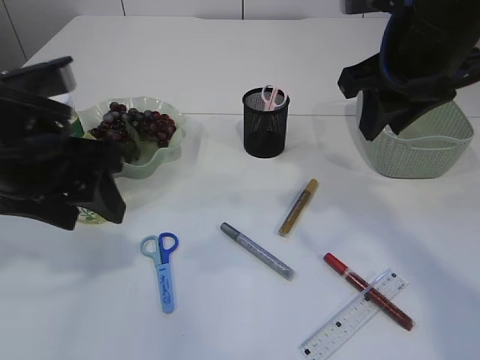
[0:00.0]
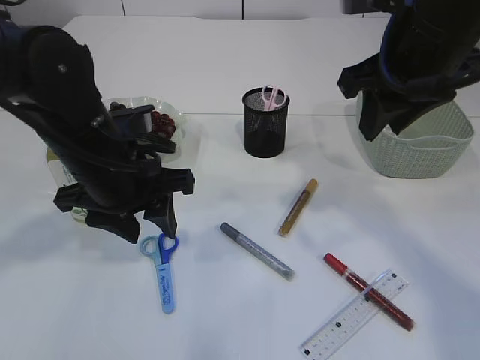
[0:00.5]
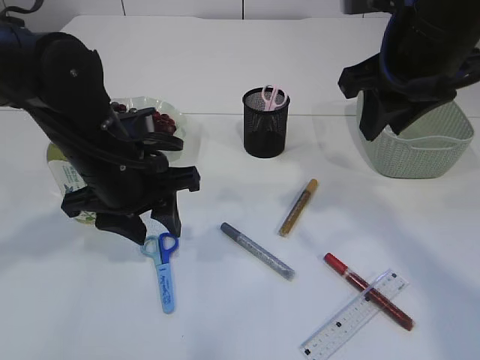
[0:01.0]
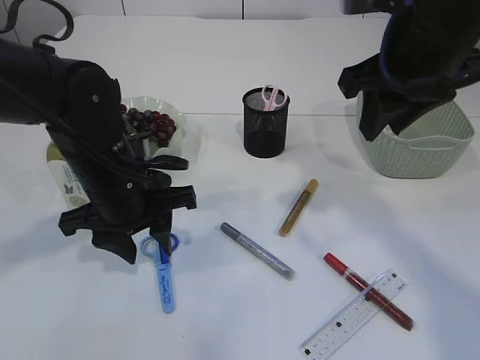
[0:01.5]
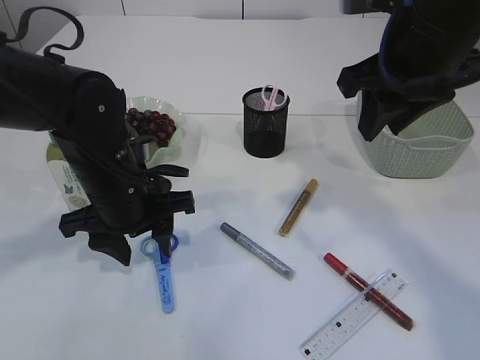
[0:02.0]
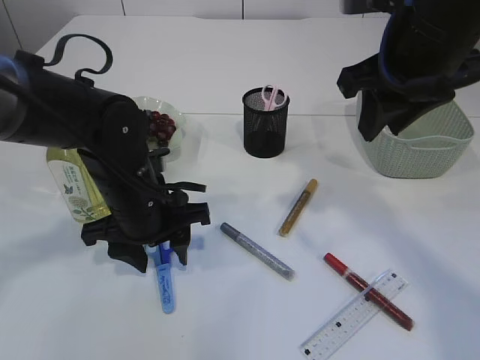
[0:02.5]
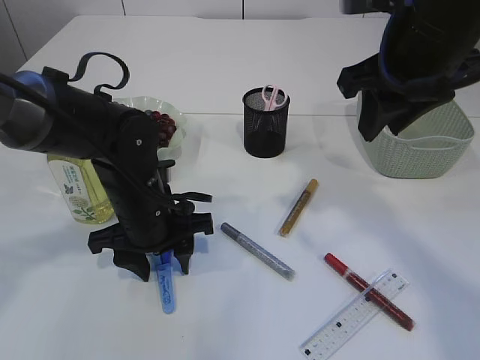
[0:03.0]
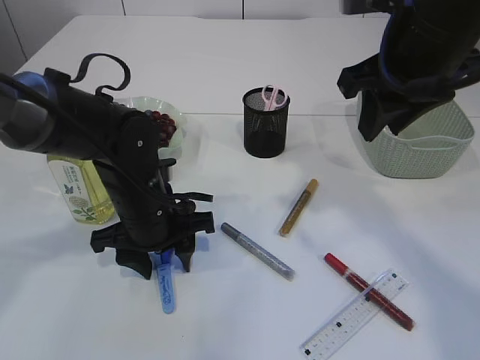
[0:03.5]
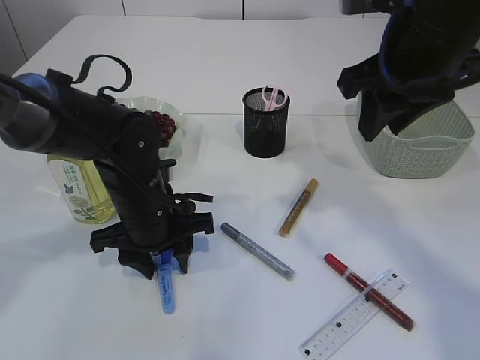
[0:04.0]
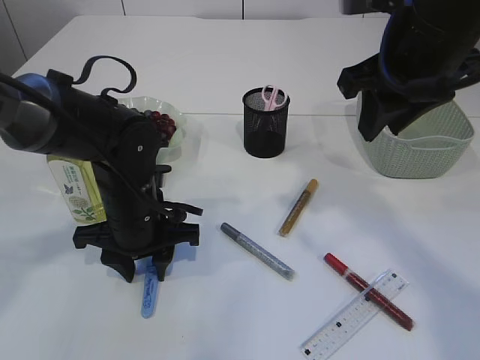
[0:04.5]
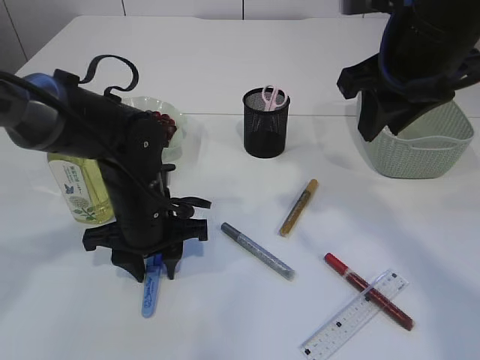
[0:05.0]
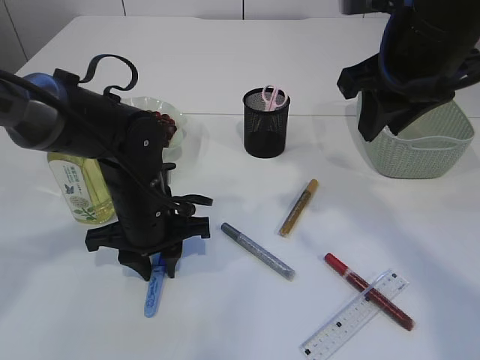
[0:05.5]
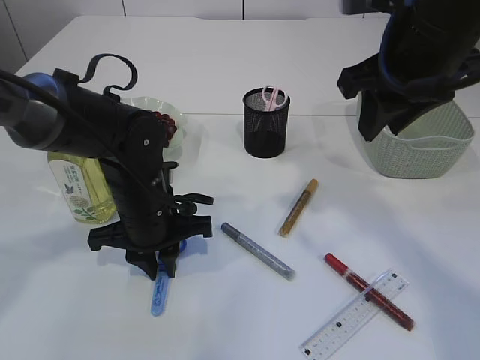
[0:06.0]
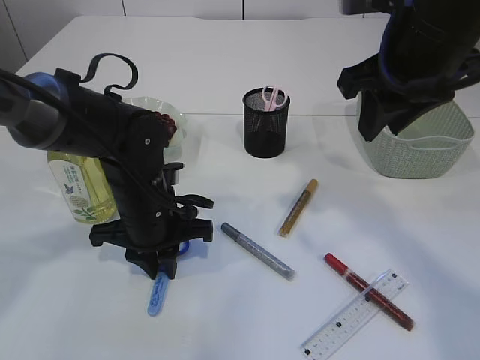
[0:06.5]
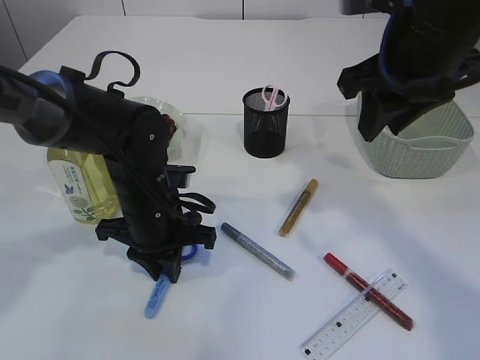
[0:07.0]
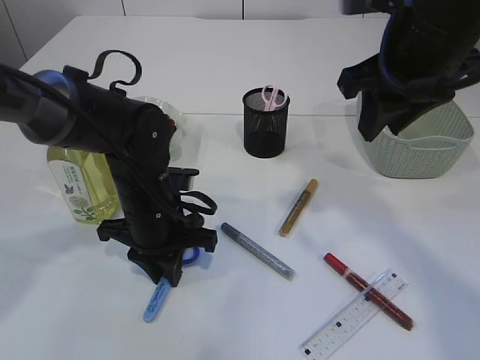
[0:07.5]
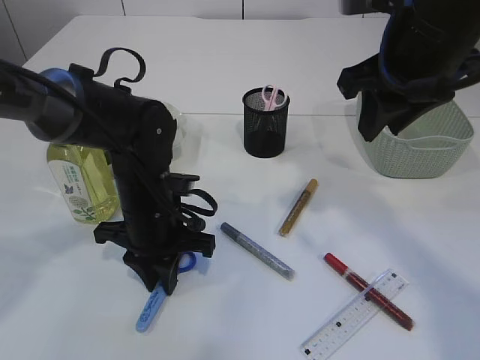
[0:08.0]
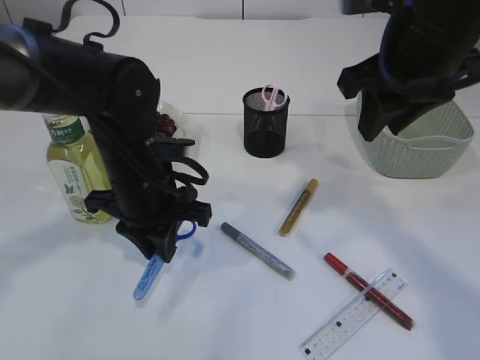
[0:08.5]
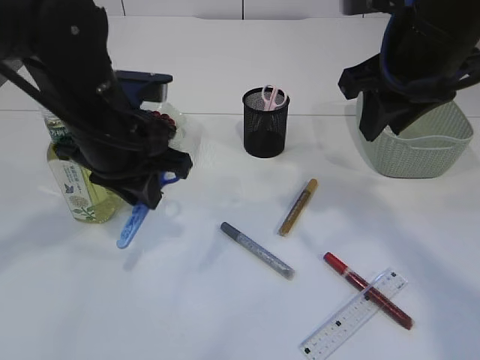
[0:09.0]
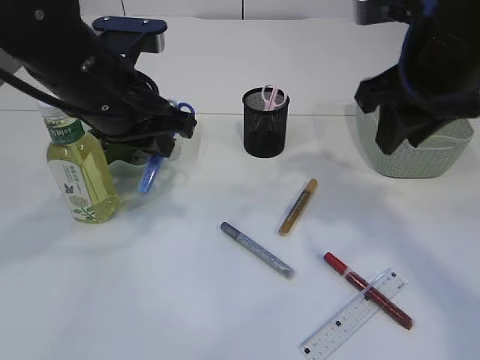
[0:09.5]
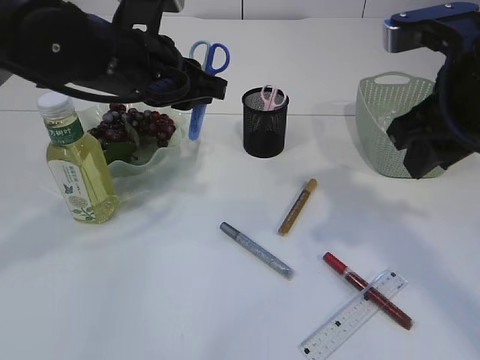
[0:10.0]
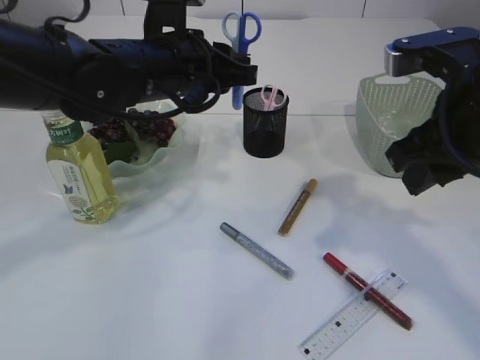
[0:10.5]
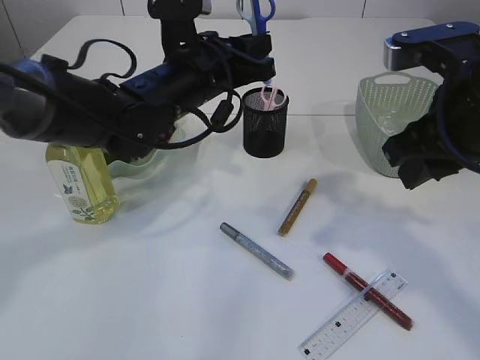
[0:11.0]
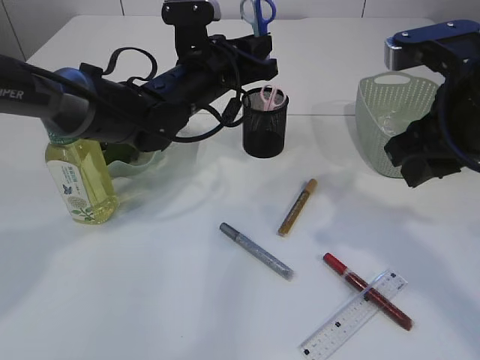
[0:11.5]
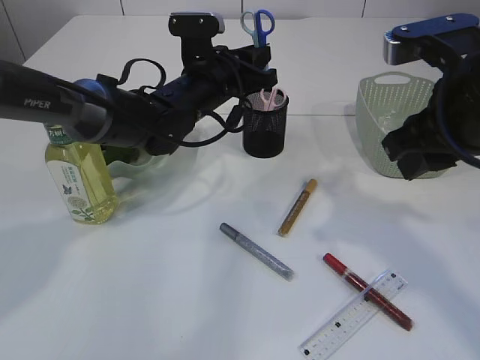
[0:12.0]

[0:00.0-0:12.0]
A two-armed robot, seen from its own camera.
Step, 0:00.0 to 0:08.5: pick up the blue scissors.
0:00.0 to 0:02.0: The left gripper shifts some 15 cm downward and forward.
0:02.0 to 0:04.0: The left gripper shifts by roughly 5 cm.
0:04.0 to 0:06.0: The left gripper closes its fingers.
0:06.0 to 0:08.0: The grippers make only small movements.
0:08.0 to 0:10.0: The right gripper moves about 5 cm. Meanwhile the left gripper heads upward, covering roughly 15 cm.
0:10.0 to 0:12.0: The left gripper moves forward, downward and to the right, approximately 15 cm.

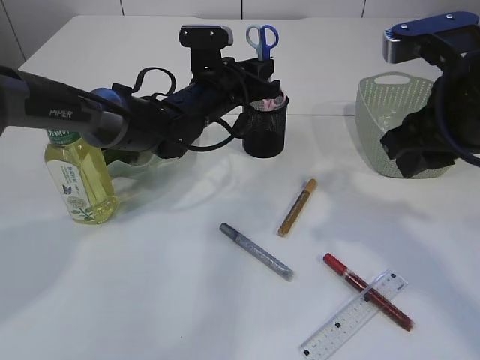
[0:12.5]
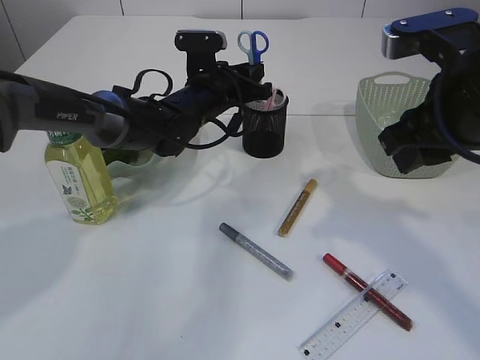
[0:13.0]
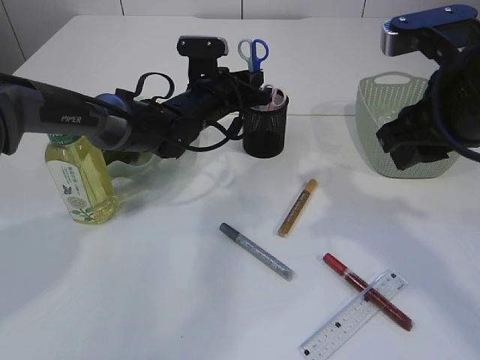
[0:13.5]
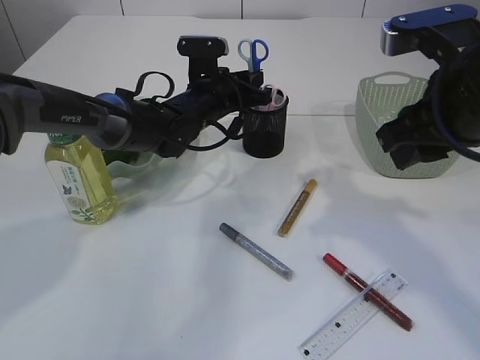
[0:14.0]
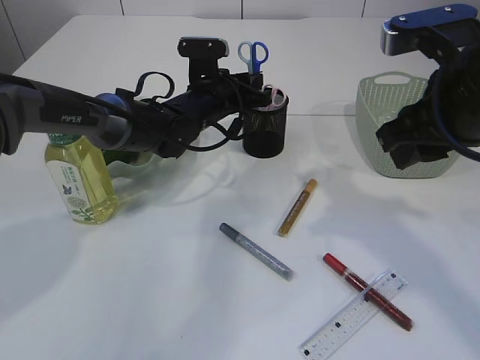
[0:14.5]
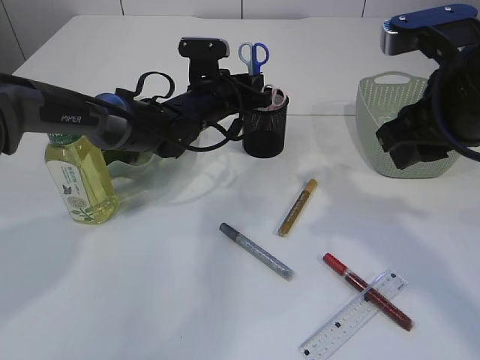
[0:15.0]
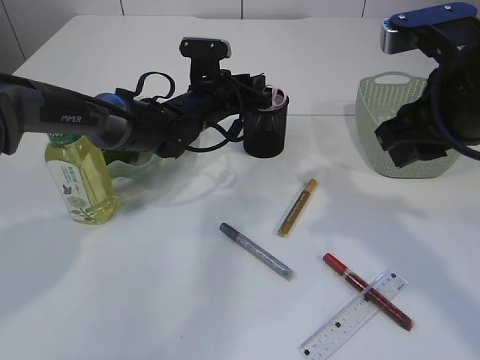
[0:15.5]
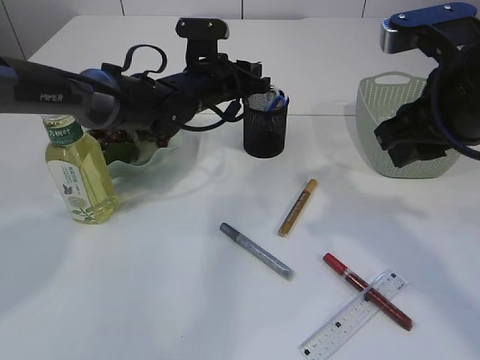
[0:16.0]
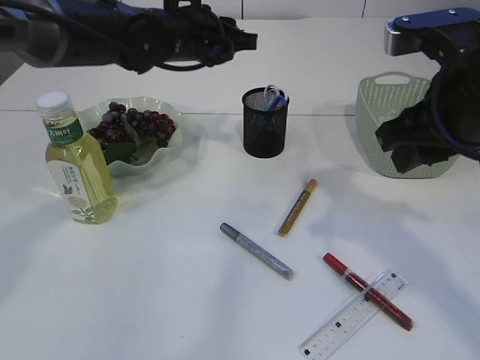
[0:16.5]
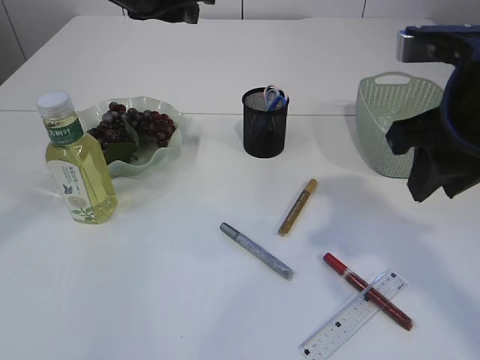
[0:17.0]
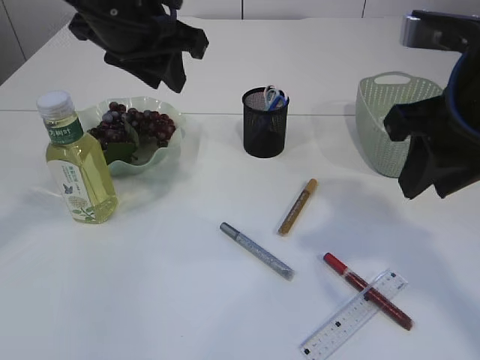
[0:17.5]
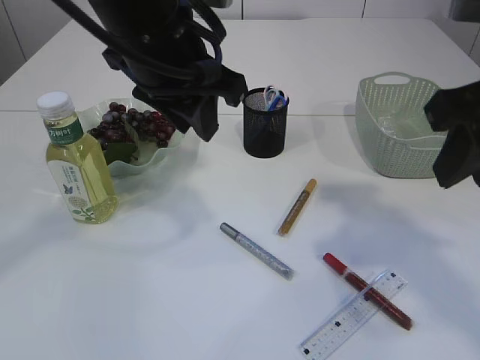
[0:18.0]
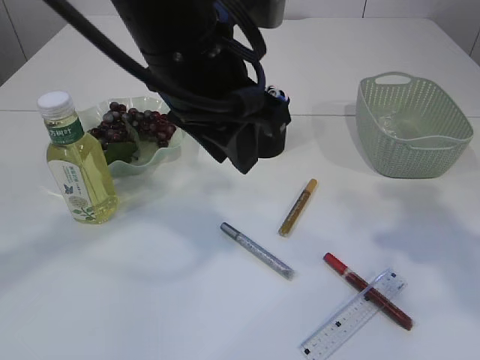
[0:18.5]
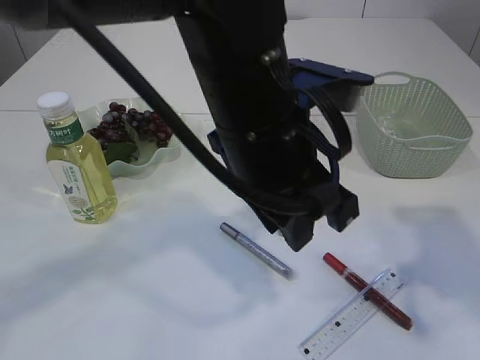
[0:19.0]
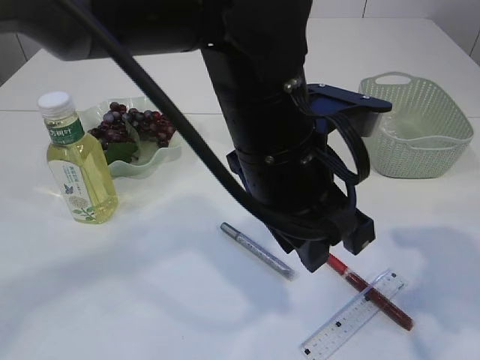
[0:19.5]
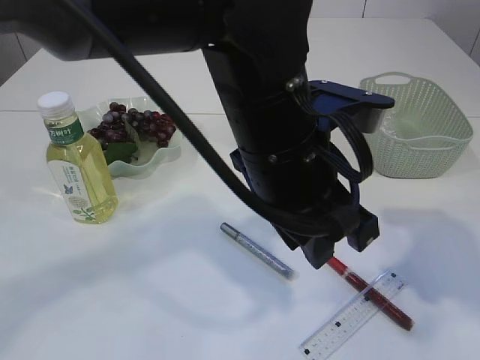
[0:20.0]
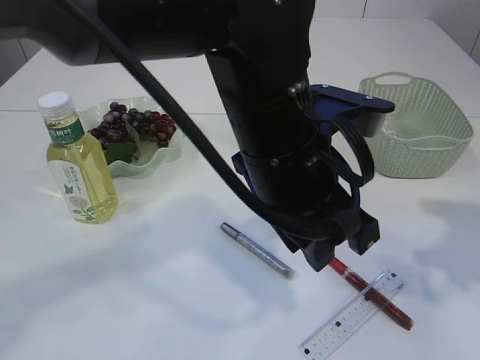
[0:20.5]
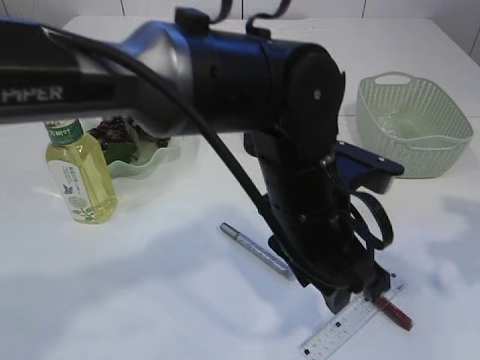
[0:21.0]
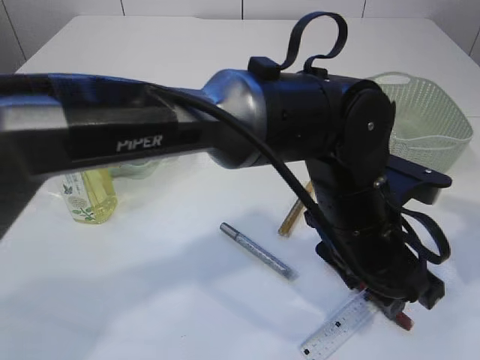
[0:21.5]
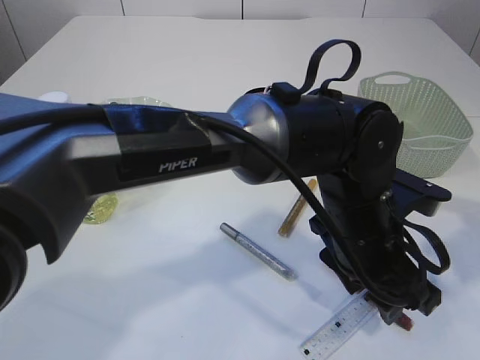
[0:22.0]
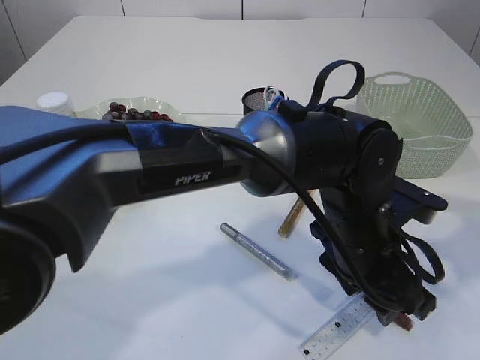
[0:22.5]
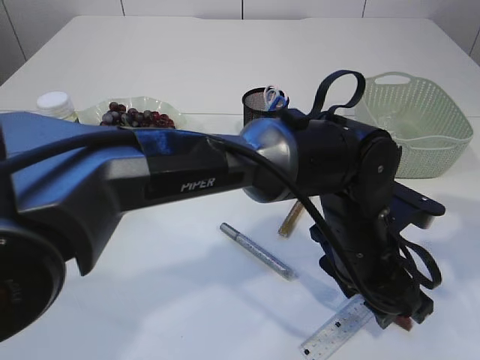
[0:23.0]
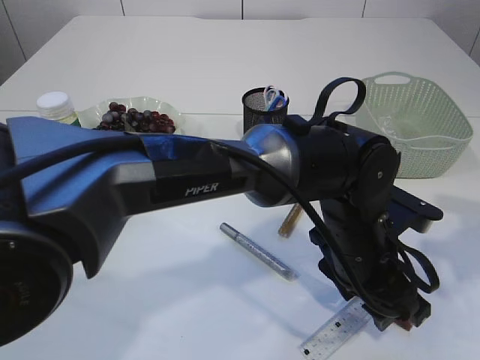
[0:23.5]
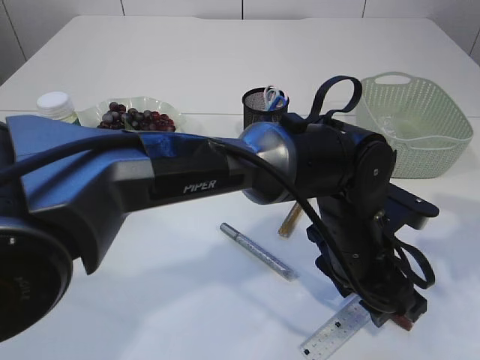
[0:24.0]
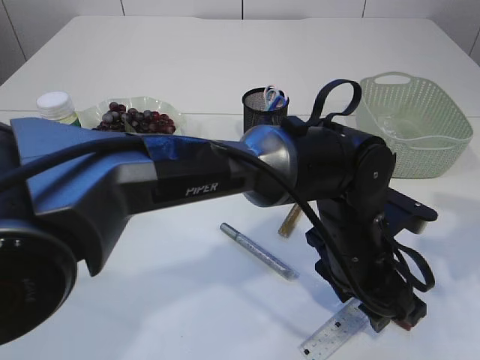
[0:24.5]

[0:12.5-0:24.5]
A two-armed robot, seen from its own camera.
Step, 0:12.5 to 0:16.0: Place the blue scissors into the pen holder.
0:12.5 to 0:14.5: The grippers move only a little.
0:14.5 to 0:16.5: The left gripper goes approximately 10 cm upward.
0:16.5 to 0:18.5: The right gripper travels to the right by some 5 cm, while the left gripper moves backward, about 20 cm.
0:18.5 to 0:20.5: The right gripper heads downward, covering some 5 cm. Meanwhile the left gripper travels to the right and downward by approximately 10 cm.
0:20.5 to 0:22.5: The left gripper shifts roughly 15 cm downward and to the right.
0:22.5 to 0:24.5: There are only small adjustments of the grippers.

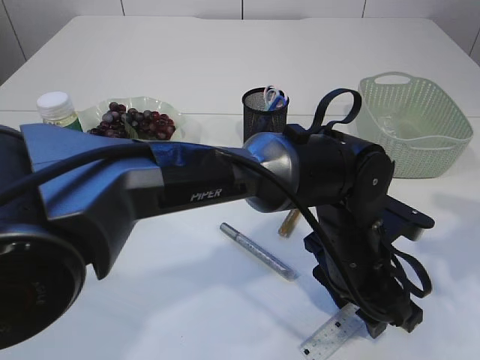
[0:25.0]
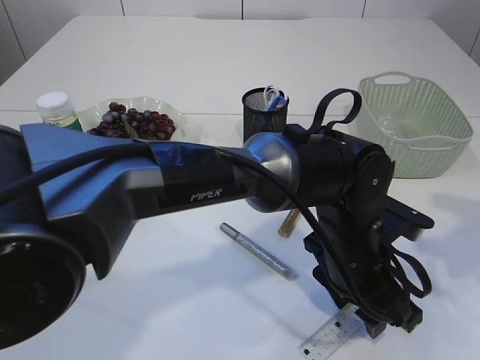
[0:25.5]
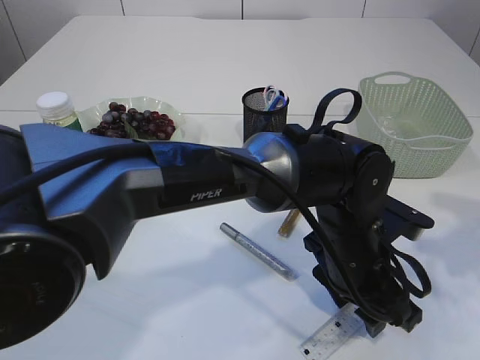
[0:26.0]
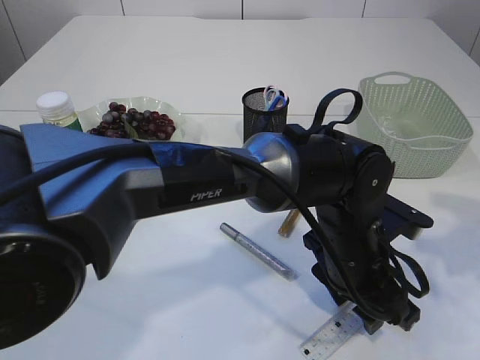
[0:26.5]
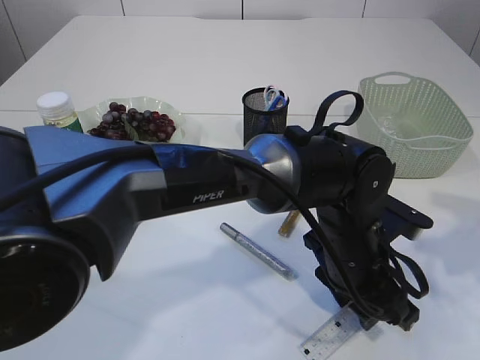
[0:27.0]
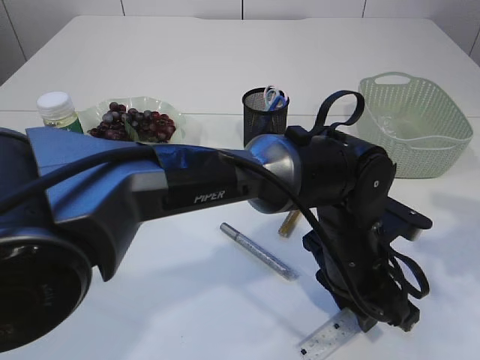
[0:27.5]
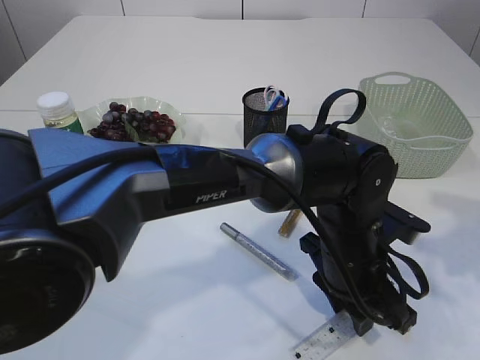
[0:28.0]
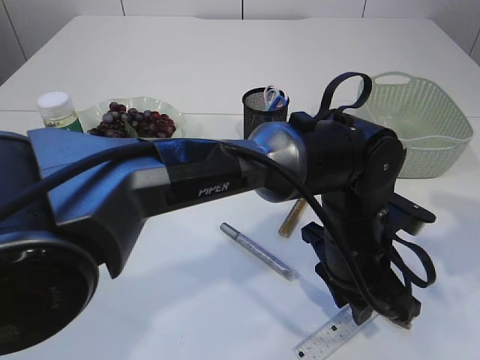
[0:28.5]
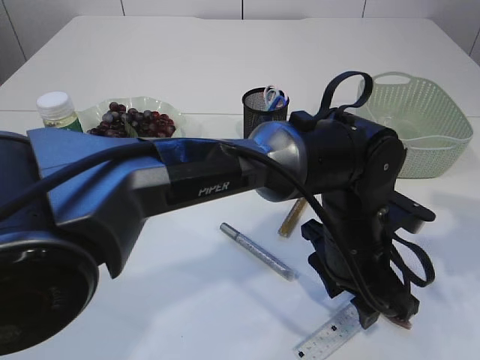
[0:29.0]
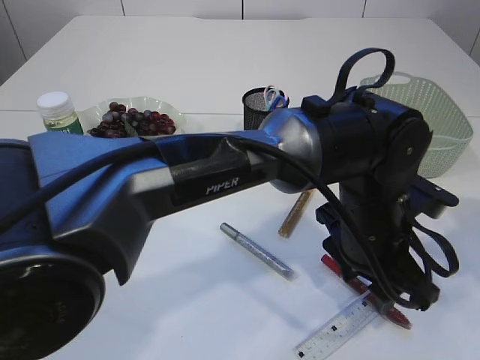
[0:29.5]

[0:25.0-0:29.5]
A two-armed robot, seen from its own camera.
0:25.0 to 0:27.0: The two grippers keep their place.
